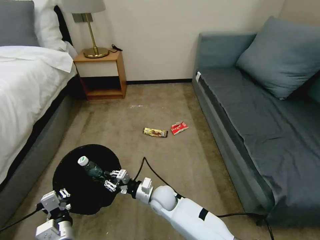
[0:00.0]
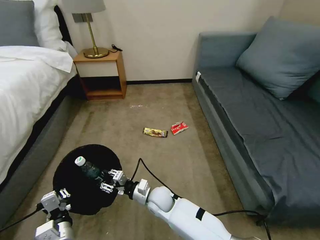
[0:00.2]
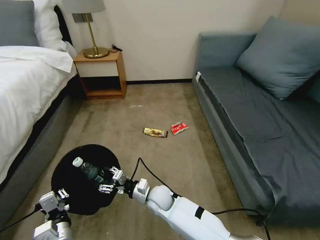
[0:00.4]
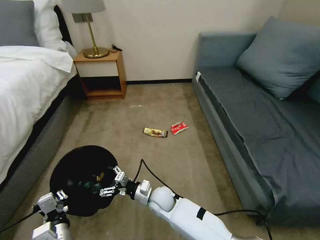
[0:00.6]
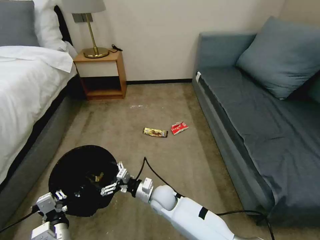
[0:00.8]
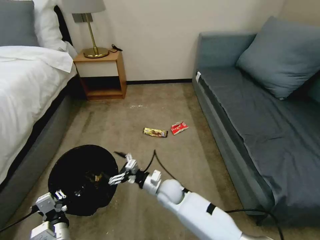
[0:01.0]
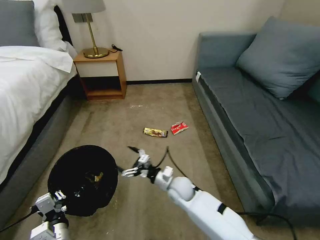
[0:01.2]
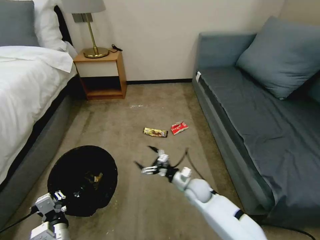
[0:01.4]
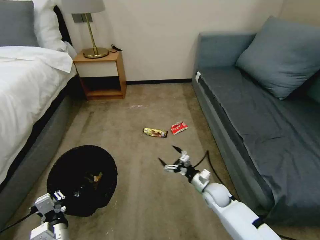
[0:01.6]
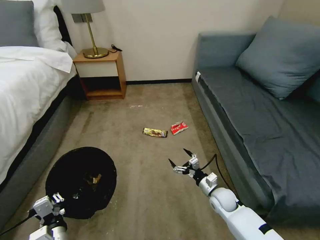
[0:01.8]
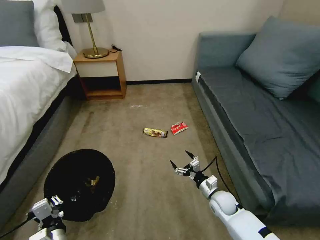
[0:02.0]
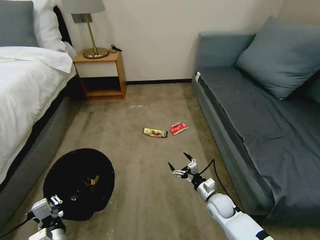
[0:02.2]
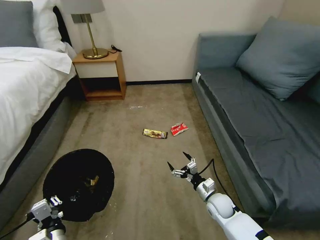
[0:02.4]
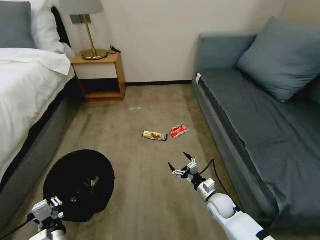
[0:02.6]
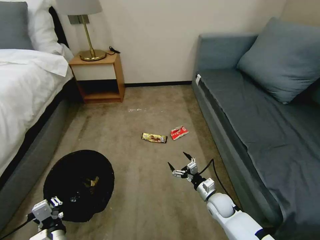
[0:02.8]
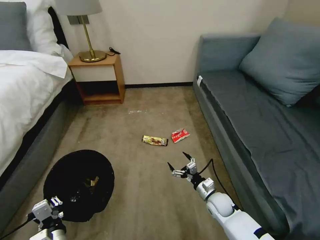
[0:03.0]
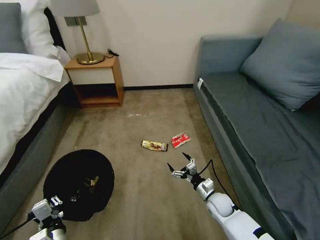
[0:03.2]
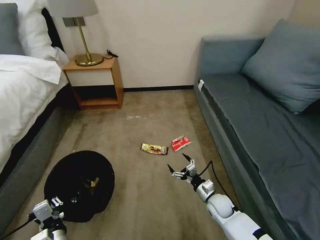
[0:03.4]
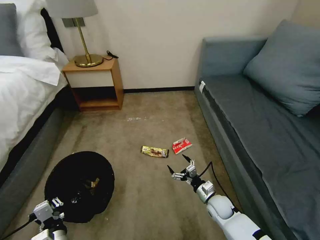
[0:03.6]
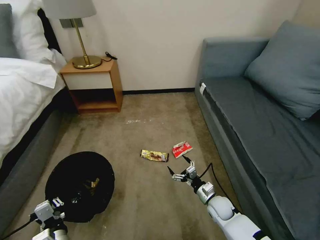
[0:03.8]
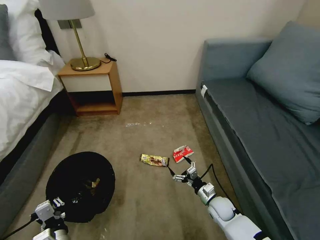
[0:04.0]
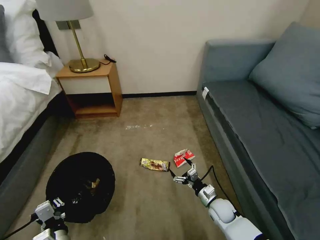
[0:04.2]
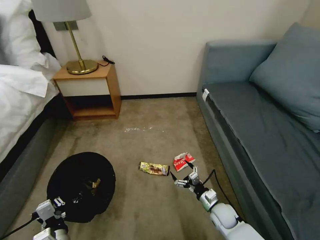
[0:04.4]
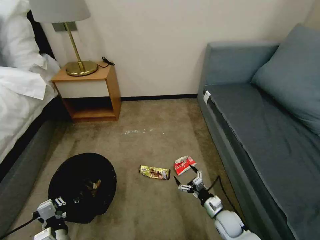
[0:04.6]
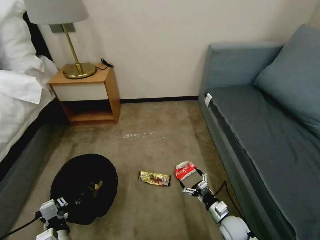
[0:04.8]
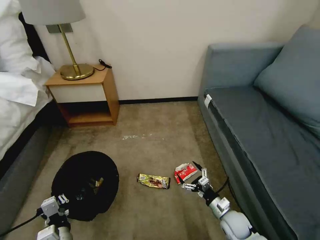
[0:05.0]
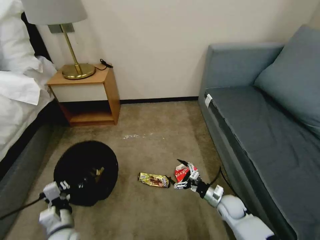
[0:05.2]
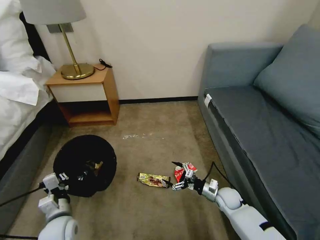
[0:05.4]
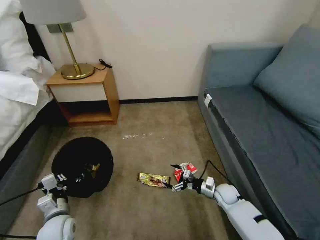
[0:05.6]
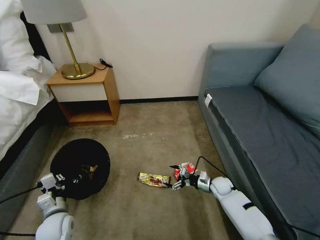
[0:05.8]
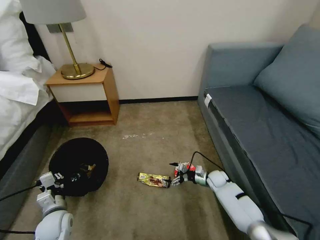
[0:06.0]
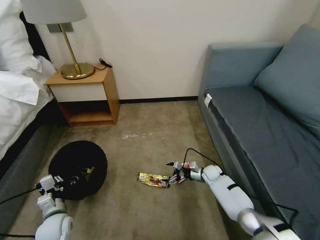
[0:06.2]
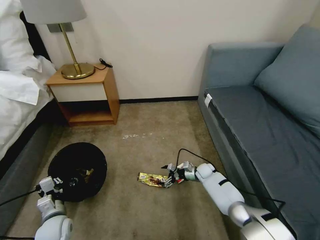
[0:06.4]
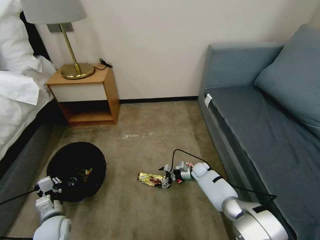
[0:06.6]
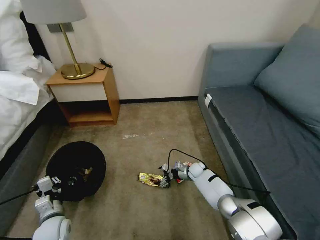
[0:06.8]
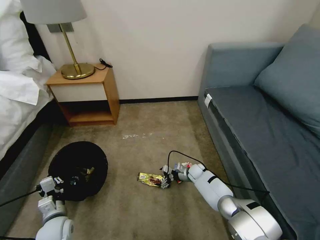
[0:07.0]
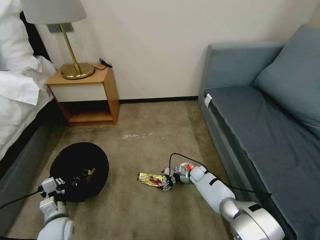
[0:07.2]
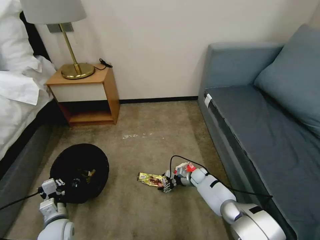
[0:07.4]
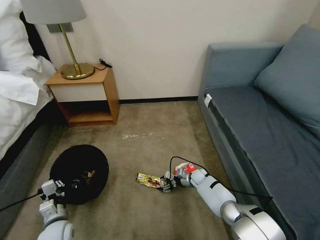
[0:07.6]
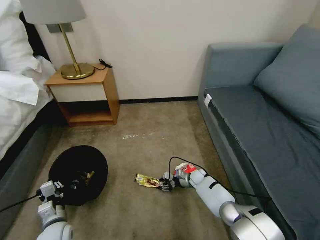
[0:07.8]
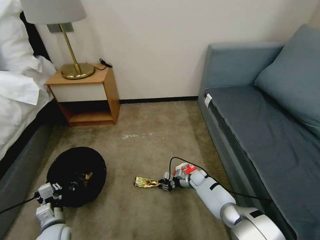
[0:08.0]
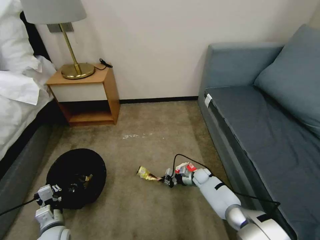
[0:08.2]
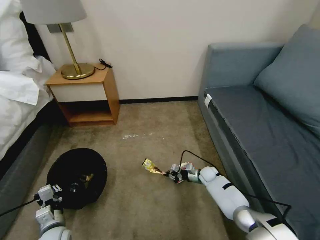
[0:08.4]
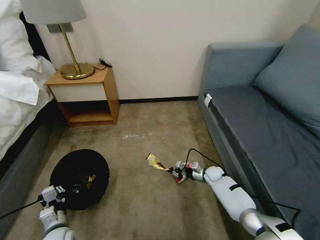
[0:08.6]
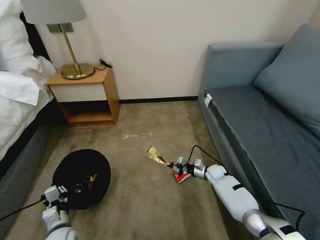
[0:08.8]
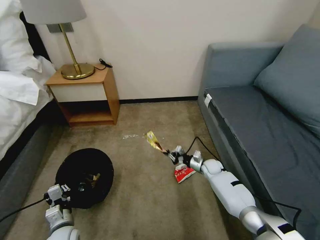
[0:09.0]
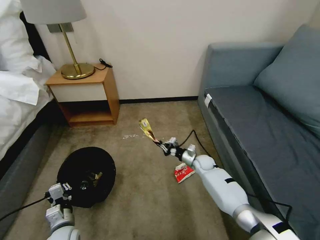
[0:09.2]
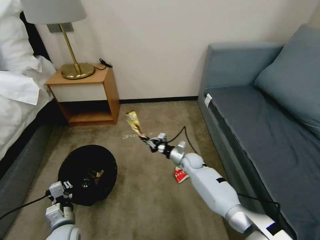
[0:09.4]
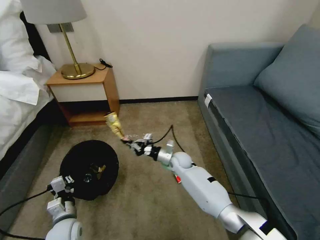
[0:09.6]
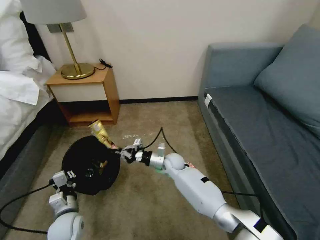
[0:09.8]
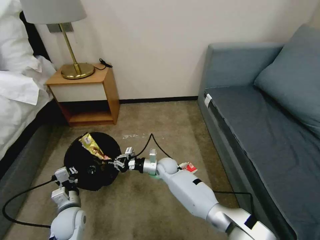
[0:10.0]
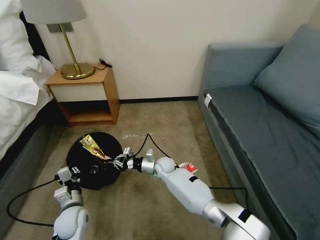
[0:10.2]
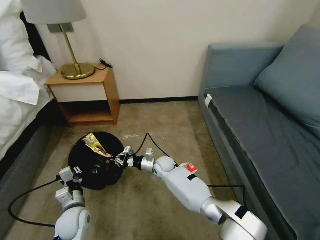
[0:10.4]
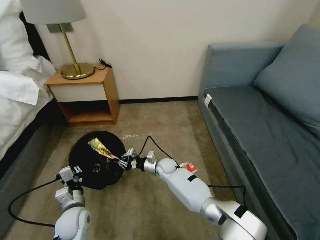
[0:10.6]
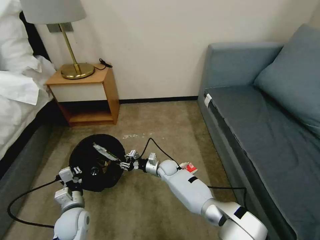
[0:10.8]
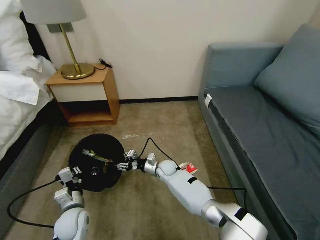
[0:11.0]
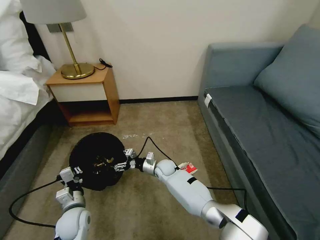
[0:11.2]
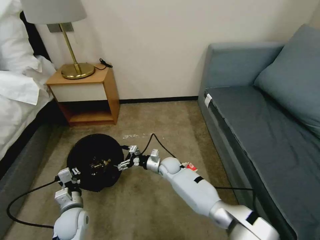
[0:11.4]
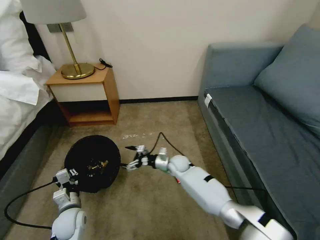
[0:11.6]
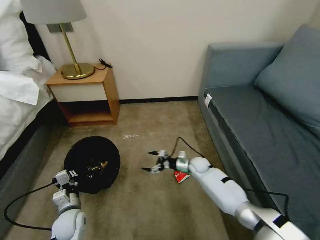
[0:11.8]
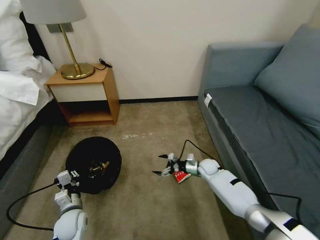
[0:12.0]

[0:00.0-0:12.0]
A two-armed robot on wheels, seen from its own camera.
Task of the whole recording: Pick up the trash bin, then pick up the garbage on the floor and place it into the trash bin.
0:00.0 to 0:01.6: The right gripper travels to the right by about 20 cm, and opens.
0:01.6 to 0:03.0: The grippers move only a little.
0:04.4 to 0:06.0: The right gripper shifts roughly 15 cm forward. Meanwhile the left gripper is displaced forward and to the left by approximately 15 cm.
0:06.0 to 0:07.6: The right gripper moves to the left, roughly 5 cm.
0:07.6 to 0:09.0: The right gripper heads upward, covering roughly 5 cm, and closes its fingers.
0:09.0 to 0:10.4: The right gripper heads to the left, covering some 25 cm; the left gripper shifts approximately 5 cm forward.
0:10.4 to 0:12.0: The right gripper moves to the right, roughly 20 cm, and opens up.

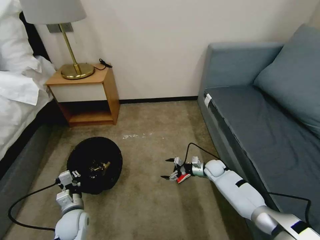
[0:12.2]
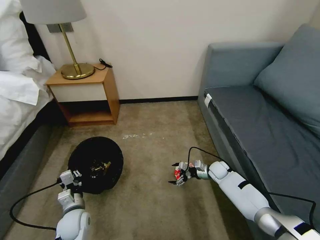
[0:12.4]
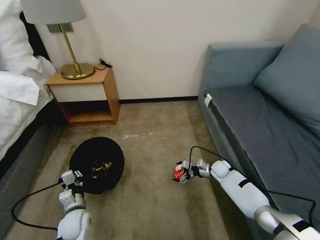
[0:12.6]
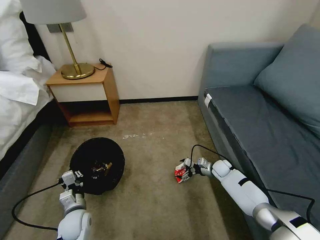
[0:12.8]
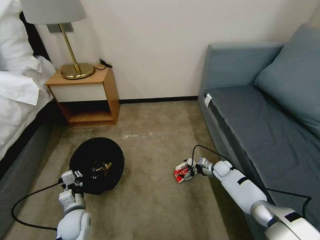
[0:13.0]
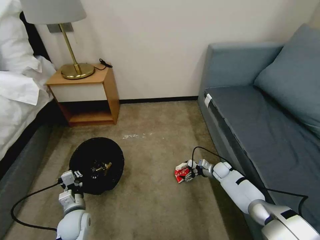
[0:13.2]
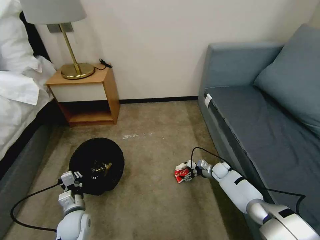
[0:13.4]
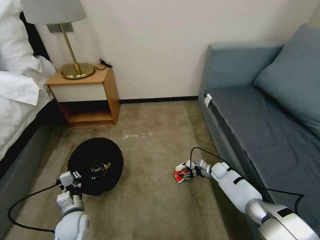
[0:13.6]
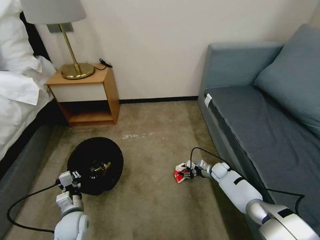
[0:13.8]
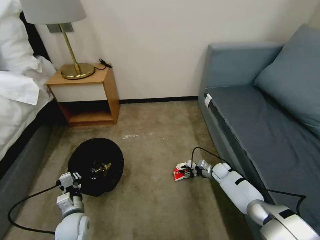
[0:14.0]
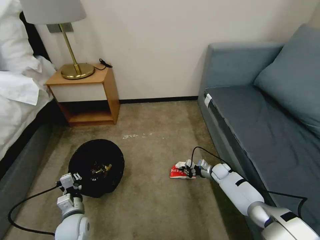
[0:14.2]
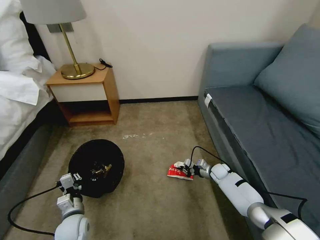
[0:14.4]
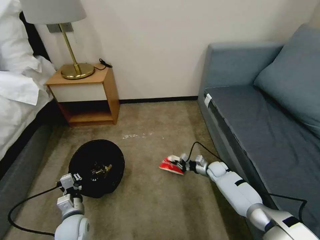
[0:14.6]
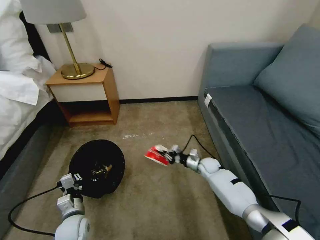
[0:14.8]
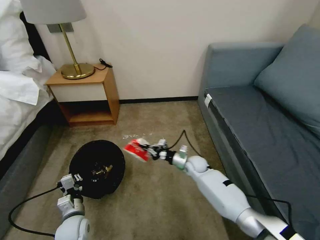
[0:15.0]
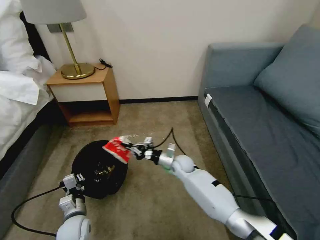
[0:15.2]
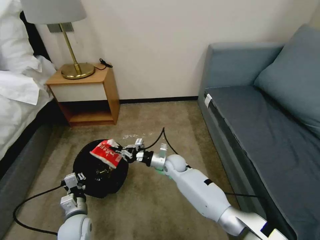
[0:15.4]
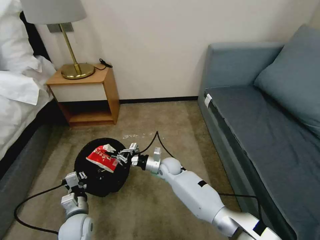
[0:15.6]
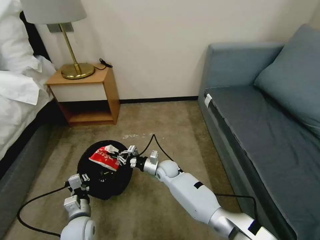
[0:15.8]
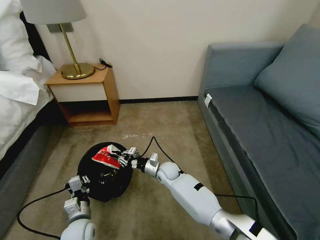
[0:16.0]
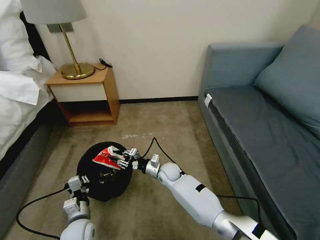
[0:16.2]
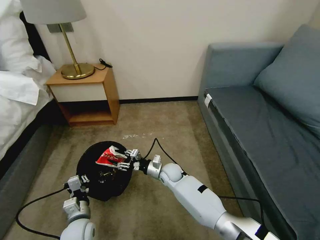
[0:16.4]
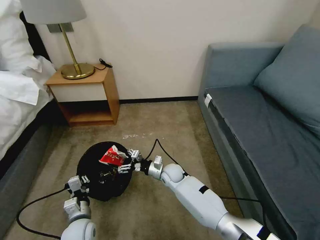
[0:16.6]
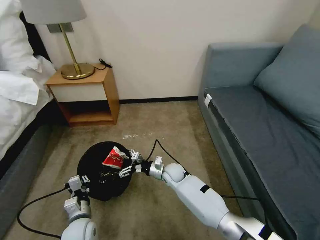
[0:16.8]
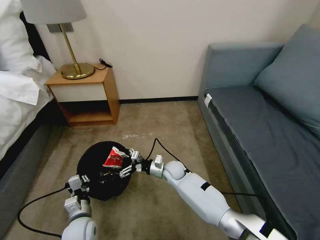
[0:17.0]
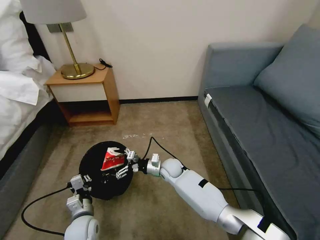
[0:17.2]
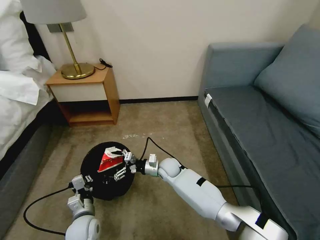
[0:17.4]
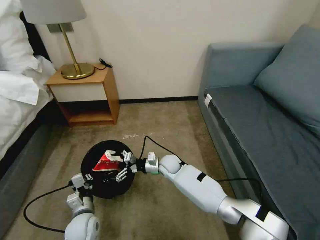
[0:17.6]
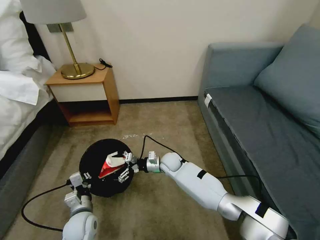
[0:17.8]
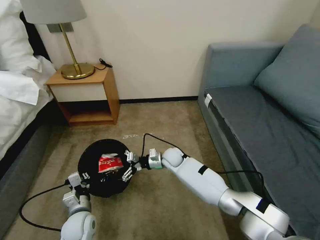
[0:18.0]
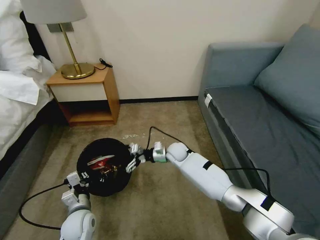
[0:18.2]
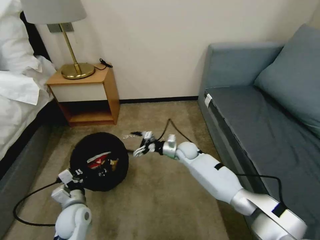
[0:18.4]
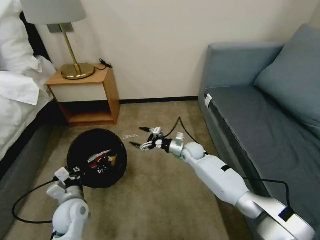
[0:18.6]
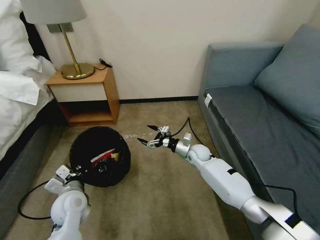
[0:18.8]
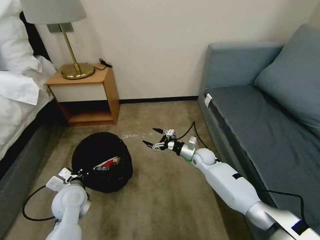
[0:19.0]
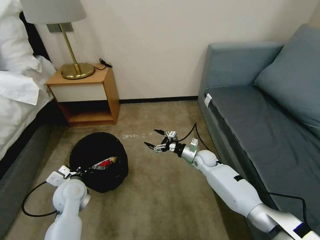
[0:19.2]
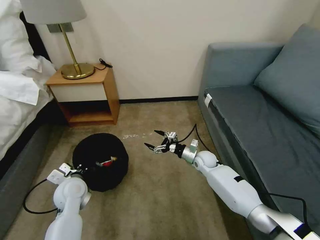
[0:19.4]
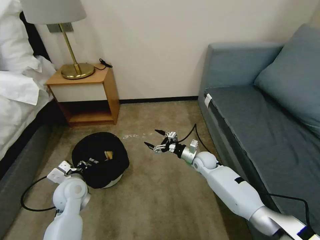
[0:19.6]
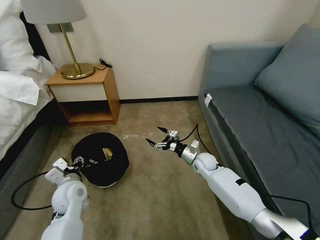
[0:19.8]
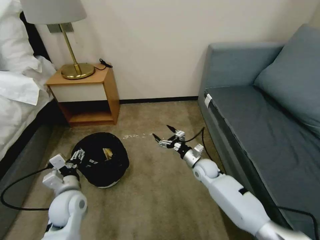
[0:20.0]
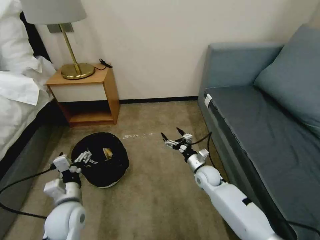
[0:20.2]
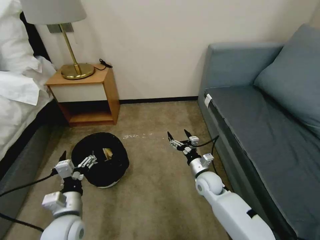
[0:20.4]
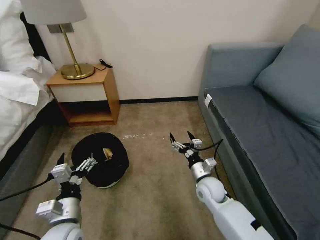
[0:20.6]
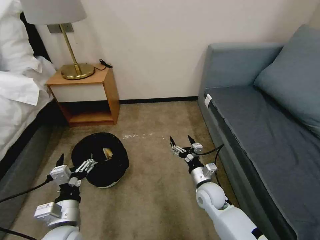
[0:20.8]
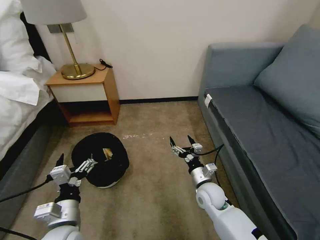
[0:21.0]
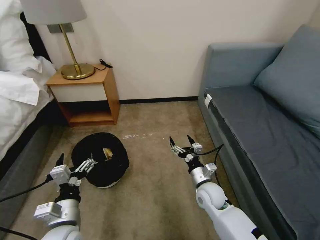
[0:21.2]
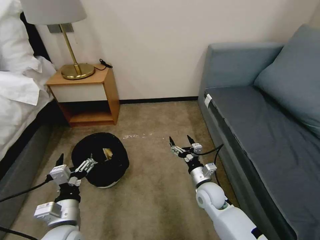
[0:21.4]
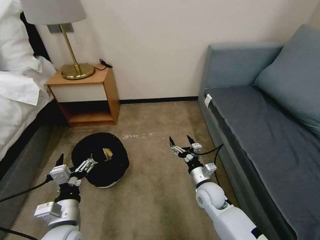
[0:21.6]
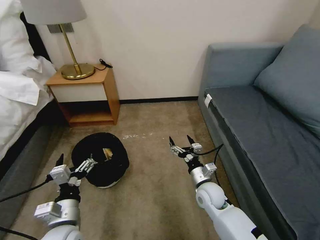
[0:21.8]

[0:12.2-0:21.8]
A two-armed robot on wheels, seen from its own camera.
Task of the whole recording: Pick up the trash bin, then pick up the garbage on the floor and place it into the trash bin.
0:12.2 to 0:13.8: The right gripper ends up some 5 cm from where it was, and closes up.
0:13.8 to 0:15.4: The right gripper travels to the left and upward by about 30 cm, and closes its fingers.
0:15.4 to 0:17.0: The right gripper opens.
0:17.0 to 0:18.6: The right gripper shifts about 10 cm to the right and forward. The left gripper is displaced upward by about 5 cm.
0:18.6 to 0:20.2: The left gripper opens its fingers. Meanwhile the right gripper is displaced backward and to the right by roughly 10 cm.
0:20.2 to 0:21.8: The grippers both shift backward by approximately 5 cm.
